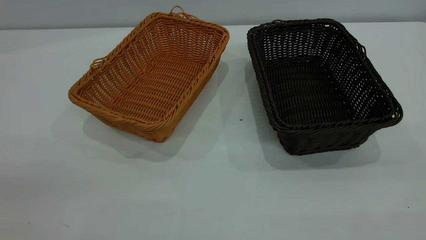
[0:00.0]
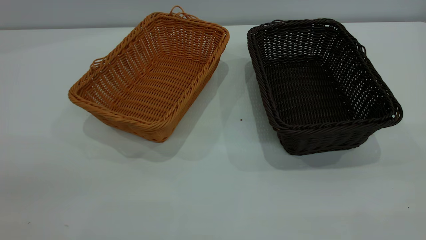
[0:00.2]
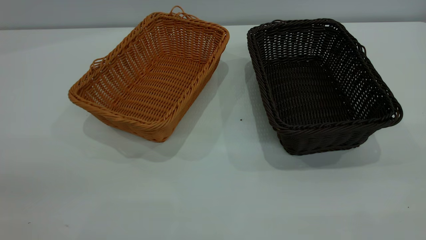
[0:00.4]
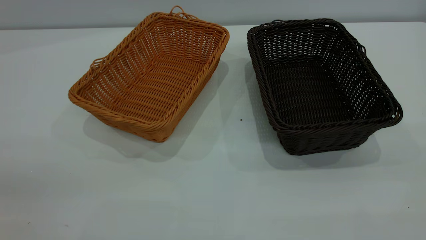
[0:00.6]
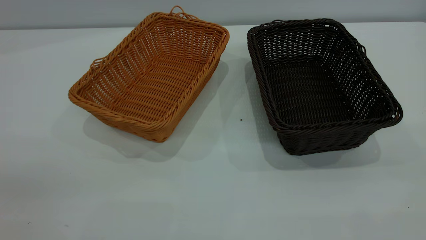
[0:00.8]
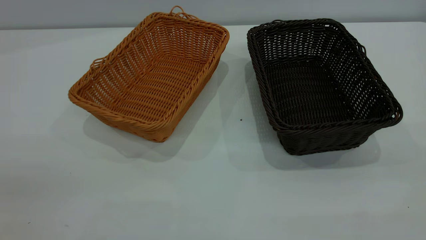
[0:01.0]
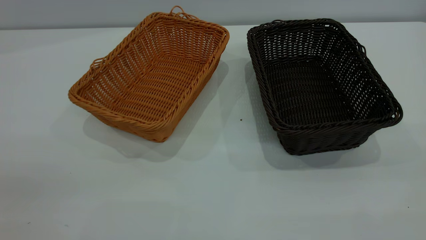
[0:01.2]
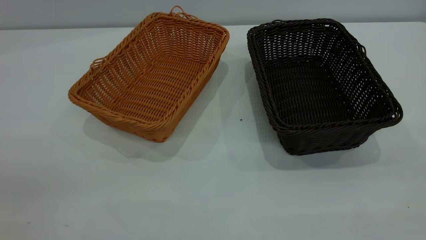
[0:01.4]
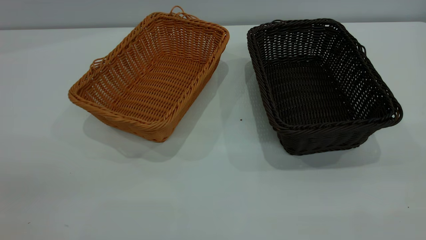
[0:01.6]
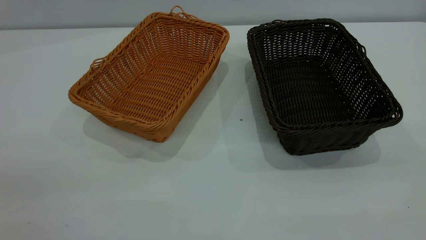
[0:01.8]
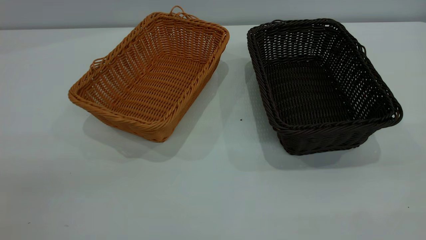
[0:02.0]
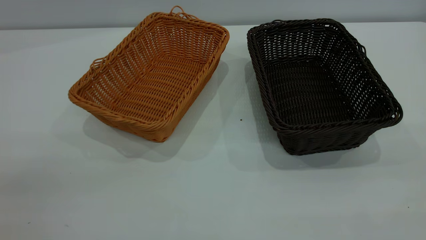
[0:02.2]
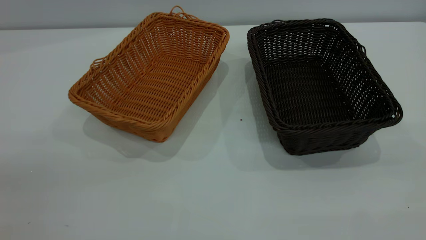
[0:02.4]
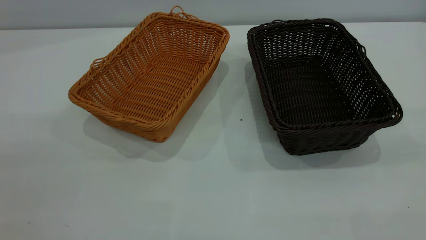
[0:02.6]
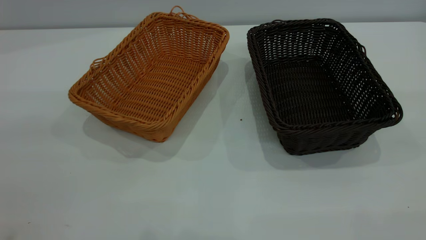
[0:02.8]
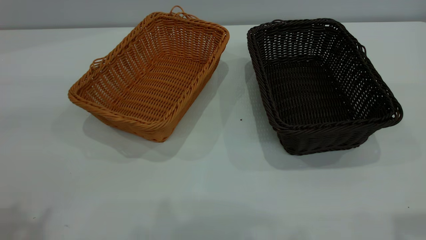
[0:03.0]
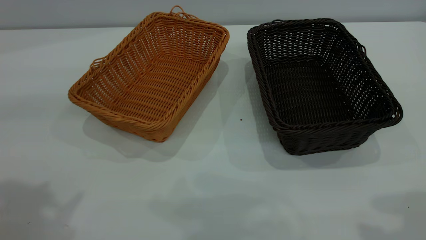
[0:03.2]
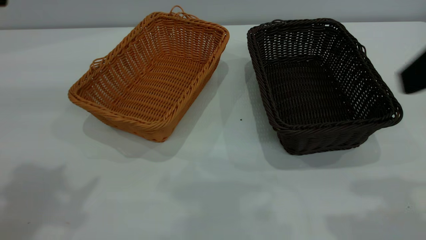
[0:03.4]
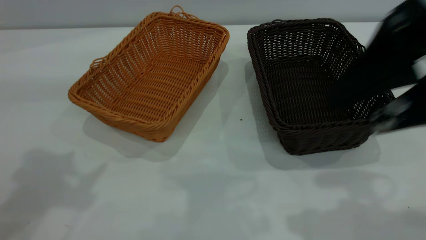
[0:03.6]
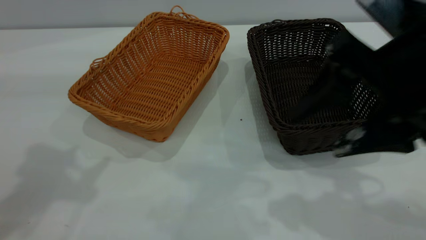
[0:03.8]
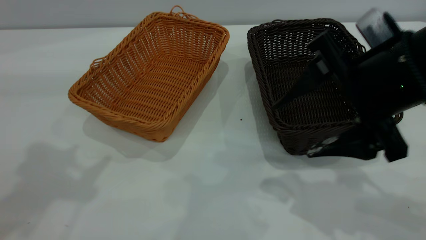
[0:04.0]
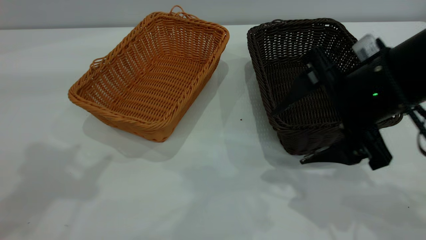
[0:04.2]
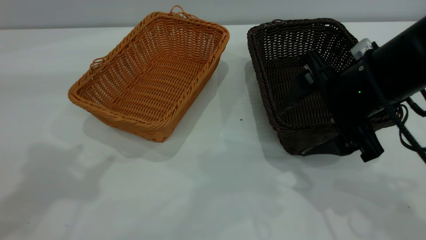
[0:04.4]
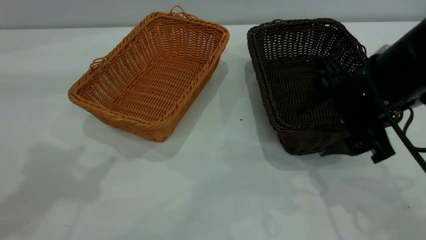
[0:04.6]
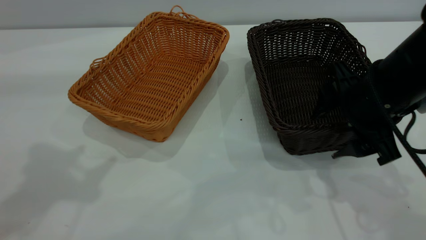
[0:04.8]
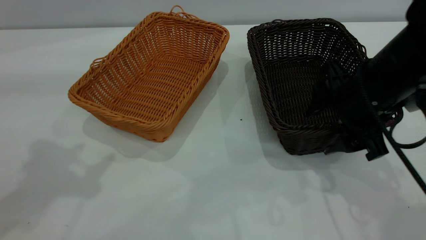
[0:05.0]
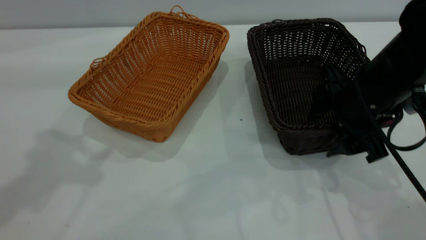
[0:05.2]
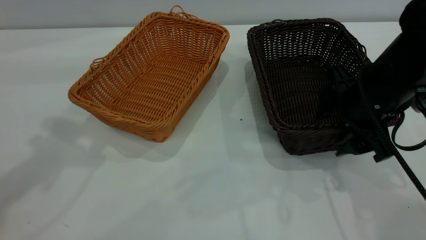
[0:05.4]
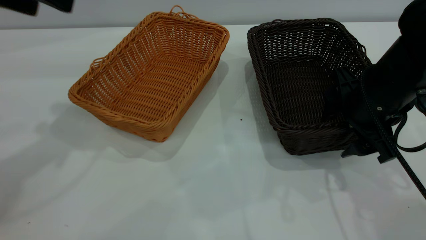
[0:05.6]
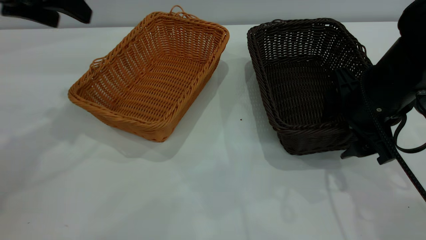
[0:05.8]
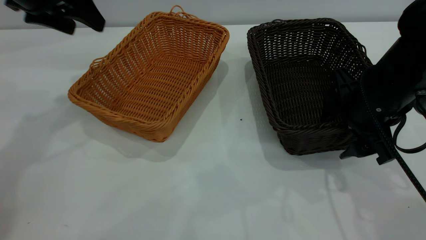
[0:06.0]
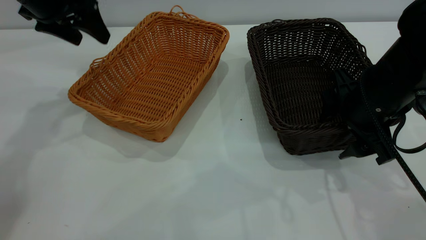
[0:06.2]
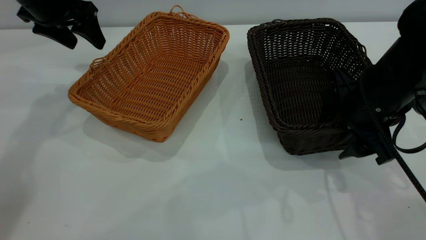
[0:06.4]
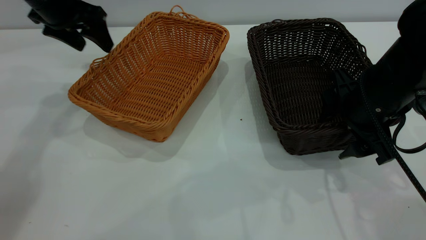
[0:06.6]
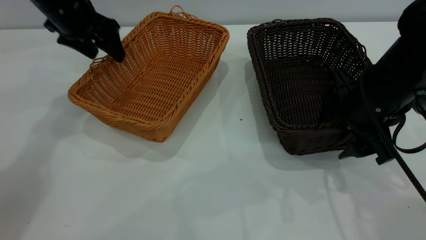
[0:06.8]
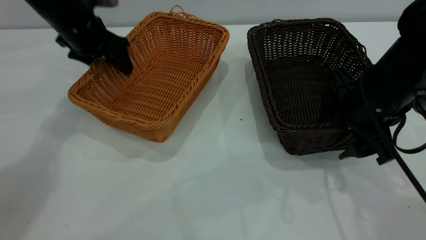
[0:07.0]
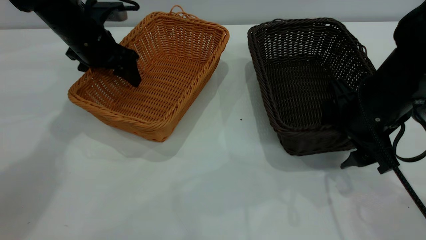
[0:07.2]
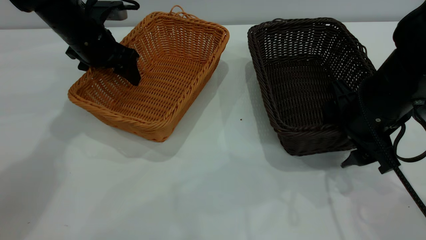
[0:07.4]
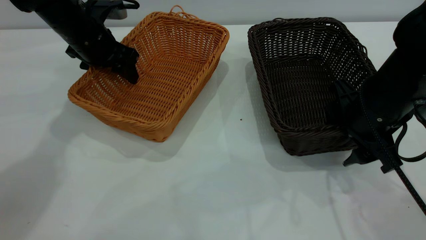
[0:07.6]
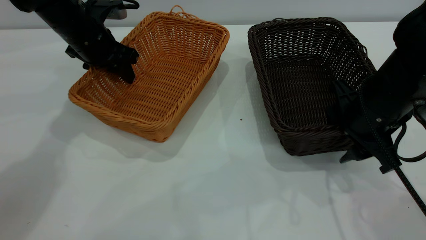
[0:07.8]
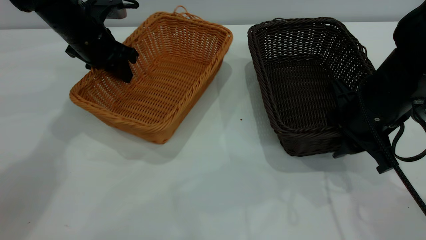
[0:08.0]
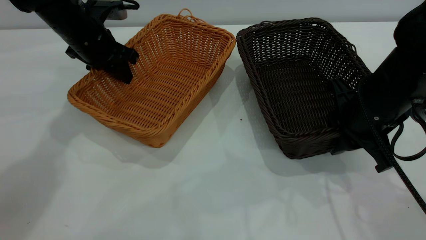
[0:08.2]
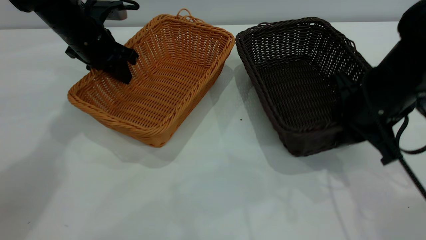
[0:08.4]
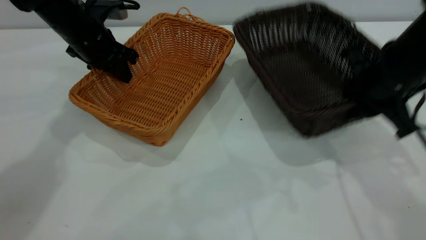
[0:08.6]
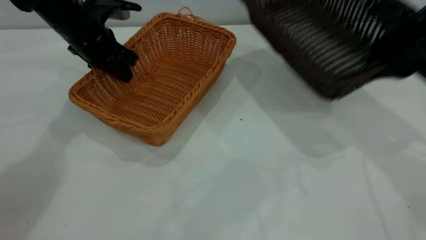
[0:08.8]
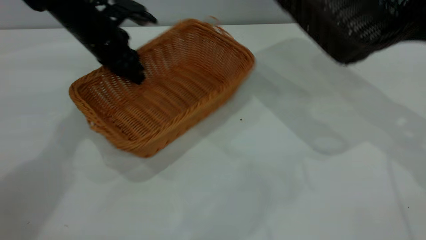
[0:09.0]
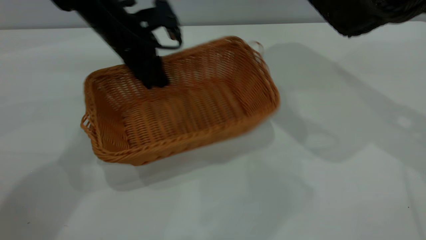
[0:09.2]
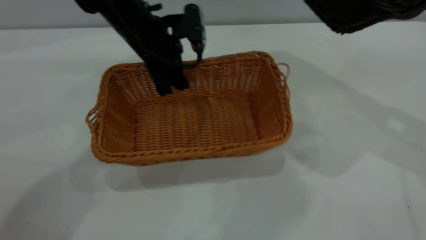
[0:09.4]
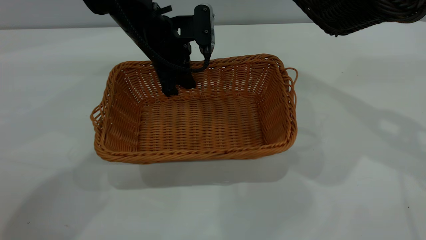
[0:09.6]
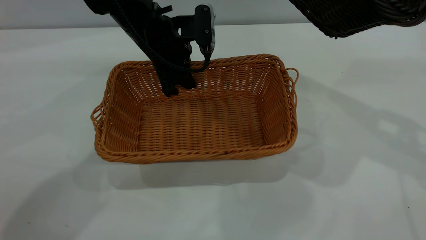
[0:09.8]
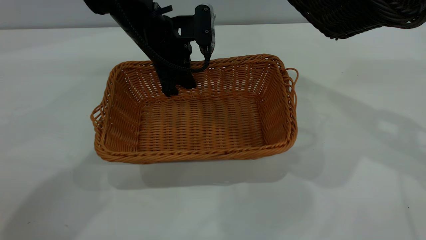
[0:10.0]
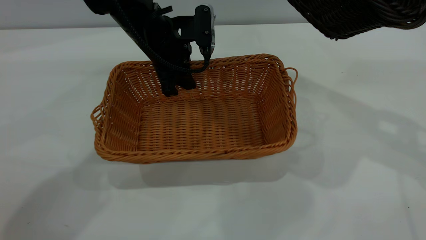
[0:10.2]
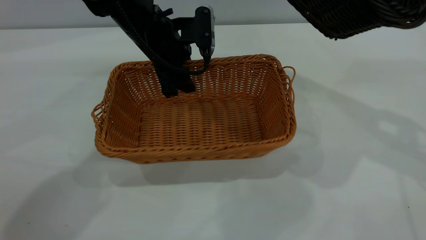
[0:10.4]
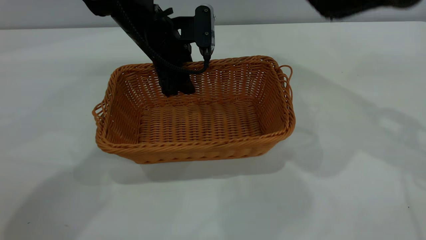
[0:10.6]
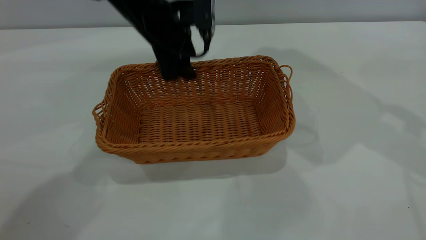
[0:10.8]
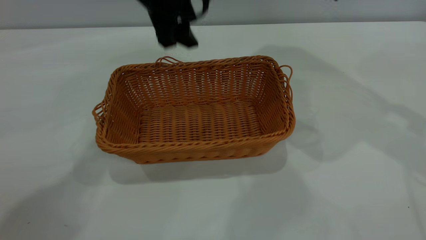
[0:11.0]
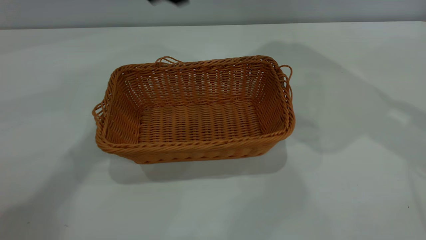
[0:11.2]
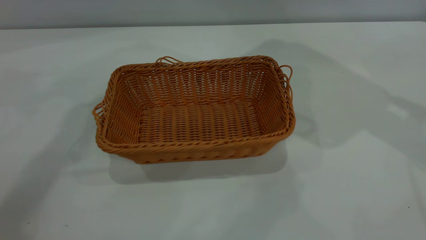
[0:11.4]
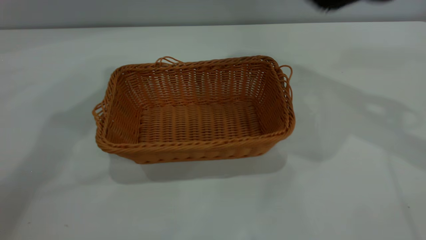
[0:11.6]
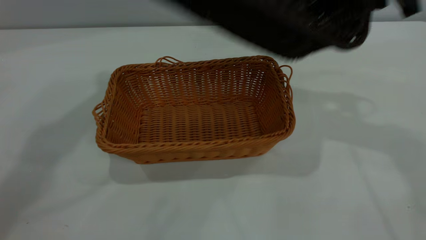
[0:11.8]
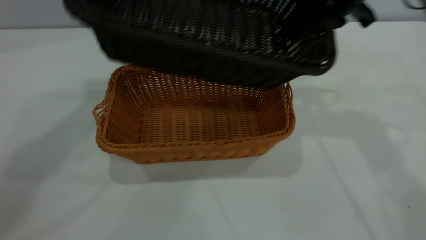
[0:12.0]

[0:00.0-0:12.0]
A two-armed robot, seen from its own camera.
Task of the whole recording: the left gripper grasp the brown basket and place it in the center of the table, the right gripper grasp the black basket and place it inside the brown one.
Step, 0:00.0 to 0:08.8: Pick up the light basket with the right gripper.
Step, 0:09.0 to 0:11.0: Place the light-colored basket in the center.
0:00.0 to 0:01.6: The two grippers keep their place.
0:03.0 to 0:04.4: The right gripper shifts roughly 25 cm downward, forward and to the left. The left gripper shifts approximately 10 cm forward.
0:04.4 to 0:06.0: The right gripper ends up about 5 cm from where it was. Meanwhile the left gripper moves forward and downward, approximately 20 cm.
0:06.0 to 0:07.6: The left gripper moves downward, approximately 10 cm.
0:07.6 to 0:09.0: The right gripper heads upward and to the right, covering approximately 15 cm, and closes up. The left gripper closes up.
0:09.0 to 0:10.4: The left gripper heads to the right, covering roughly 10 cm, and opens.
0:10.4 to 0:12.0: The right gripper travels to the left and forward by about 15 cm. The left gripper heads upward, covering roughly 40 cm.

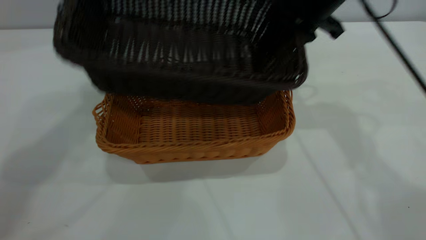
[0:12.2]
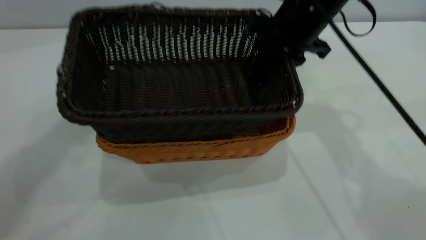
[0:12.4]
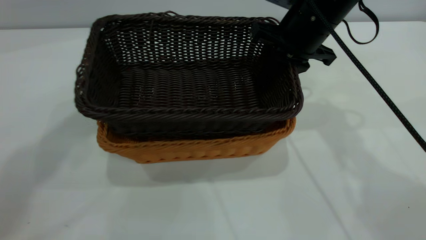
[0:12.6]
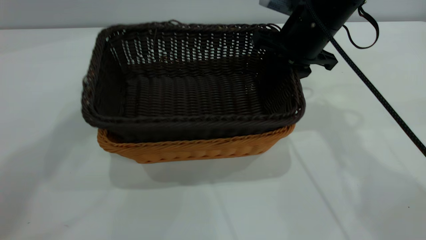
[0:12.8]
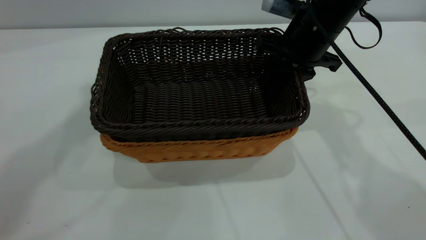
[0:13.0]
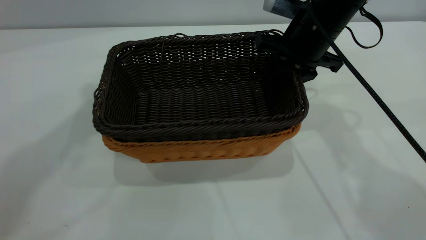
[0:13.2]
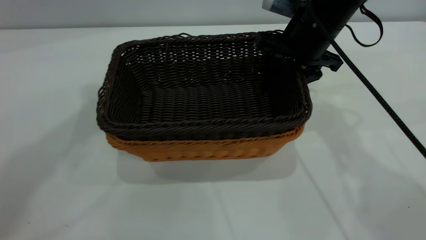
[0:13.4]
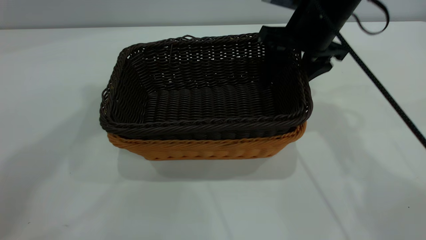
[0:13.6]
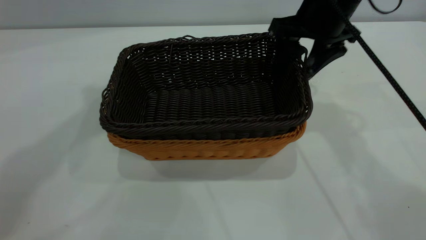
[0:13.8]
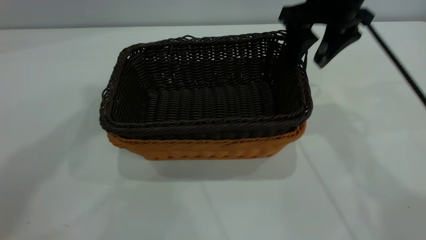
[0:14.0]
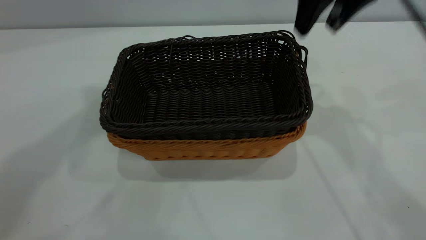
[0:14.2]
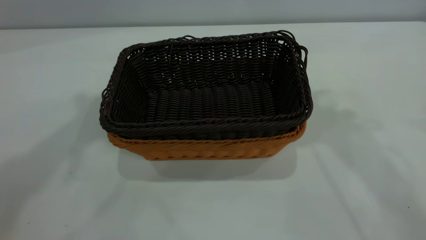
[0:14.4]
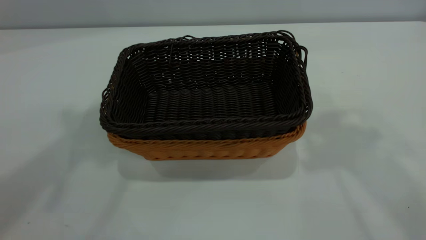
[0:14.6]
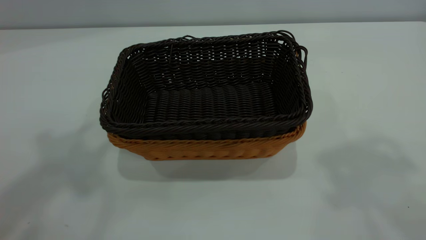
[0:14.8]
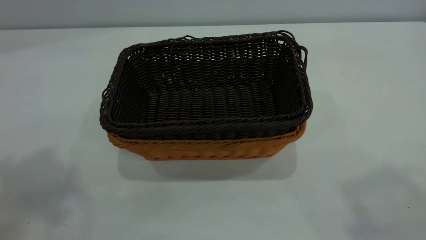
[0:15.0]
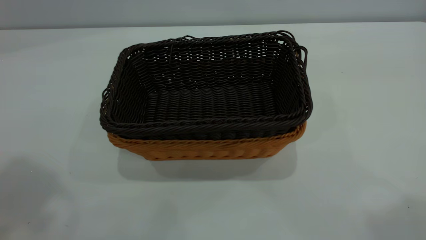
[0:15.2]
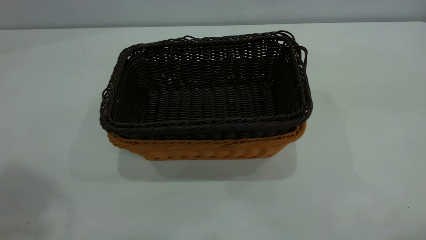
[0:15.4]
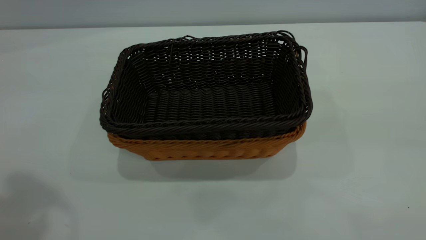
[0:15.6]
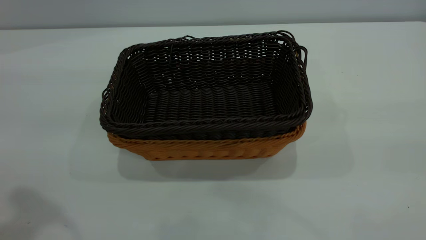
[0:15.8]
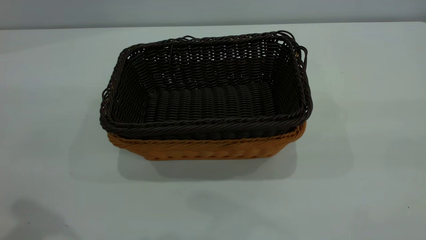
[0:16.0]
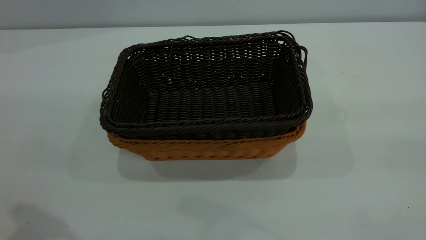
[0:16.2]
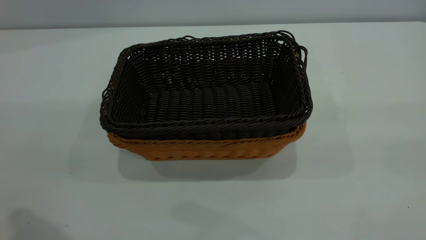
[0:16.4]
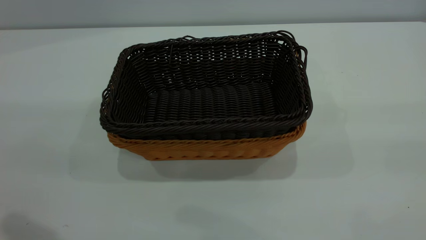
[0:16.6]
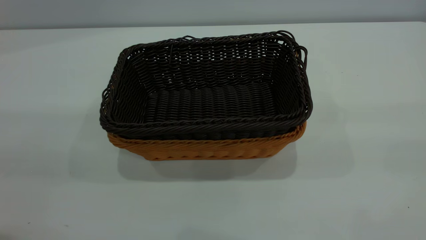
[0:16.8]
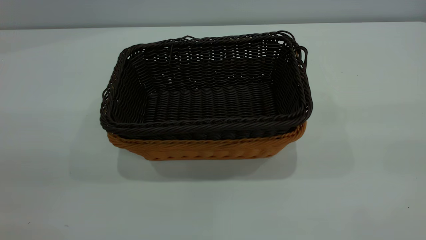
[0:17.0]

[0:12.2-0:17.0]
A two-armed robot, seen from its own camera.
Task of the whole recording: the left gripper grasp the brown basket and place it in the center of the table, the right gripper grasp the black basket and place it inside the brown one.
Step, 0:12.2 to 0:13.8: Place the dark basket on top of the light basket.
0:12.2 to 0:13.8: The right gripper opens up.
0:13.8 to 0:15.4: The left gripper moves backward, about 15 cm. Meanwhile the right gripper heads backward and upward, covering about 40 cm.
